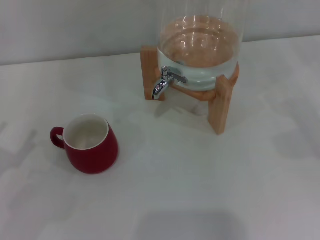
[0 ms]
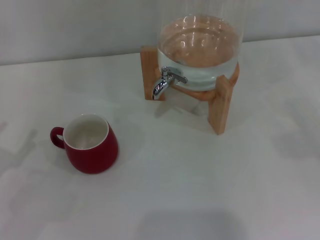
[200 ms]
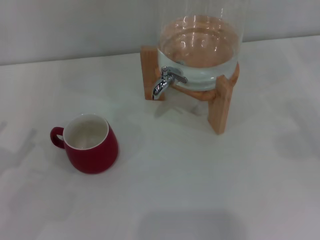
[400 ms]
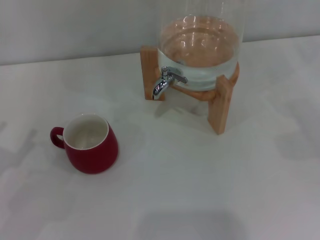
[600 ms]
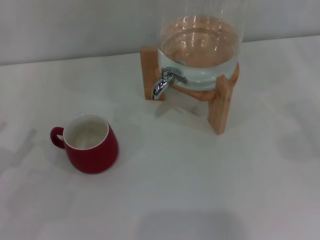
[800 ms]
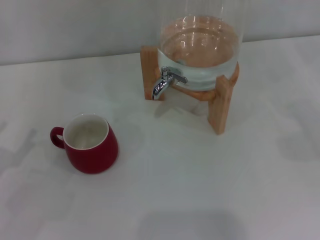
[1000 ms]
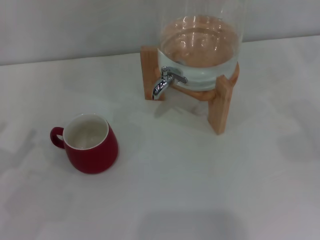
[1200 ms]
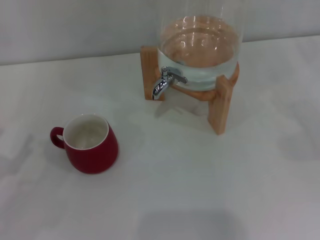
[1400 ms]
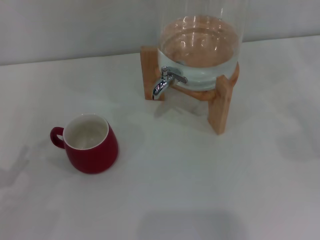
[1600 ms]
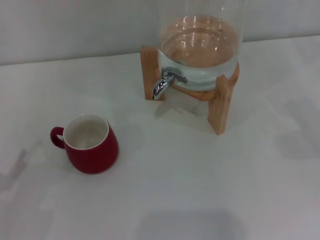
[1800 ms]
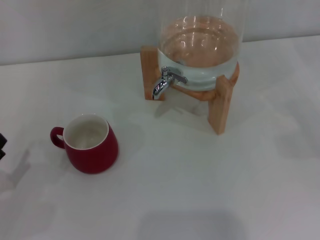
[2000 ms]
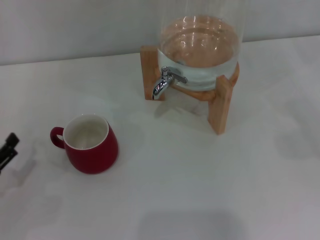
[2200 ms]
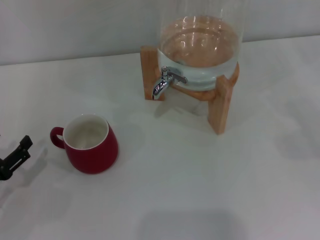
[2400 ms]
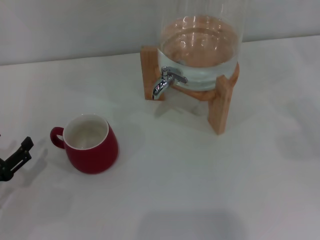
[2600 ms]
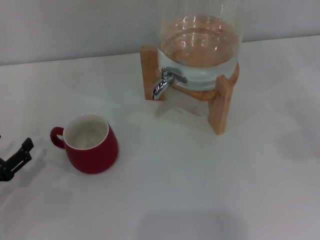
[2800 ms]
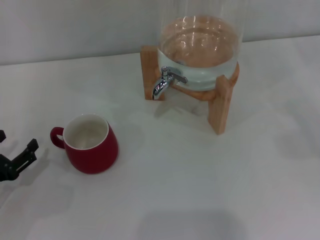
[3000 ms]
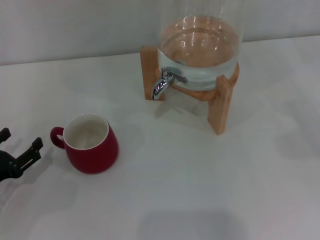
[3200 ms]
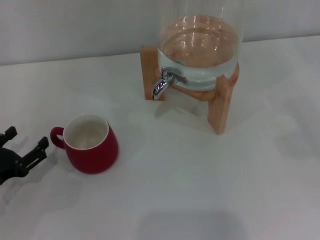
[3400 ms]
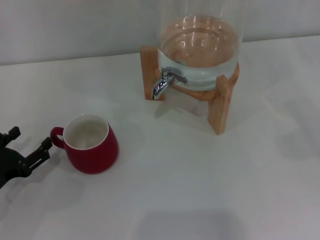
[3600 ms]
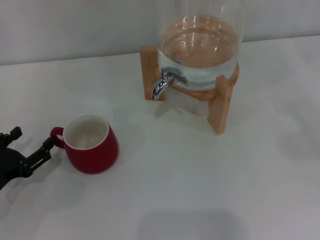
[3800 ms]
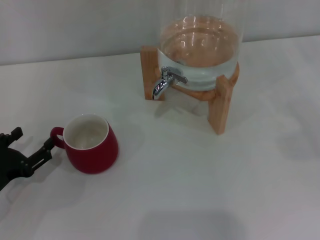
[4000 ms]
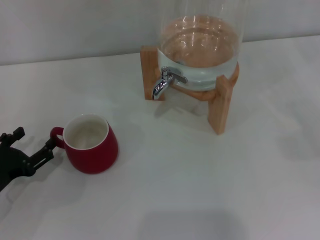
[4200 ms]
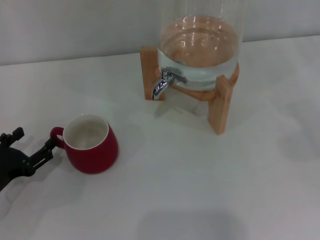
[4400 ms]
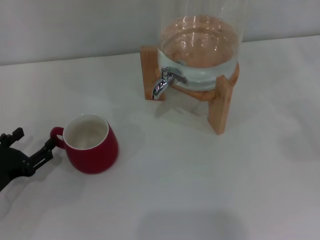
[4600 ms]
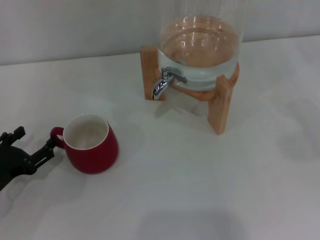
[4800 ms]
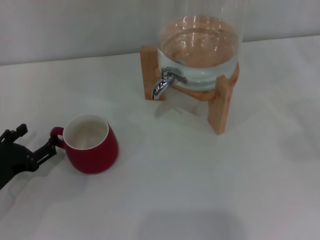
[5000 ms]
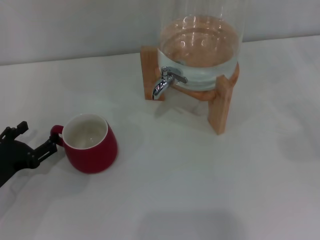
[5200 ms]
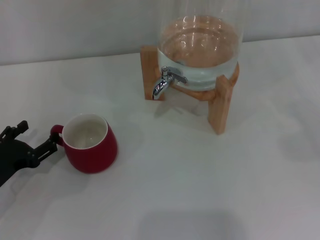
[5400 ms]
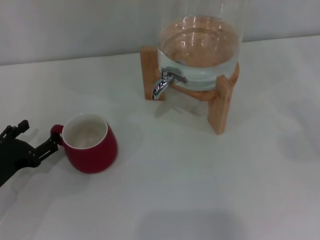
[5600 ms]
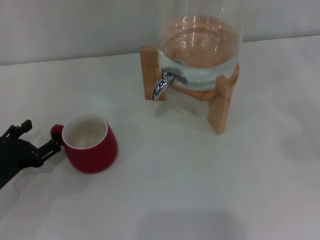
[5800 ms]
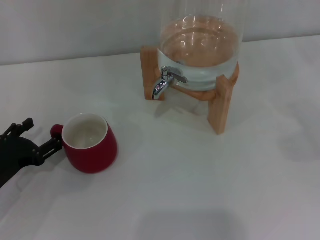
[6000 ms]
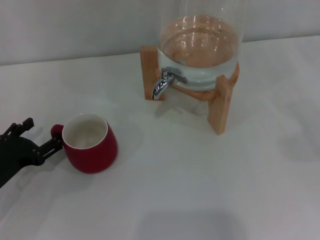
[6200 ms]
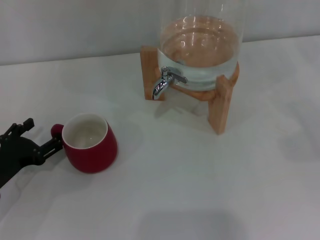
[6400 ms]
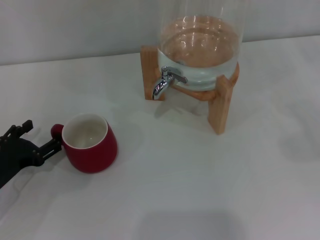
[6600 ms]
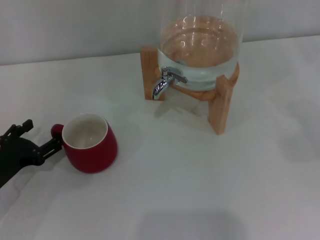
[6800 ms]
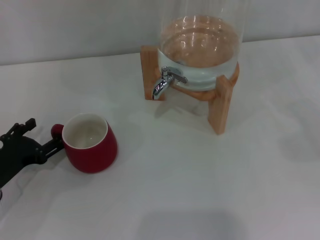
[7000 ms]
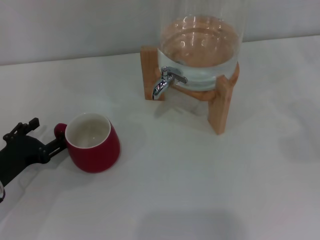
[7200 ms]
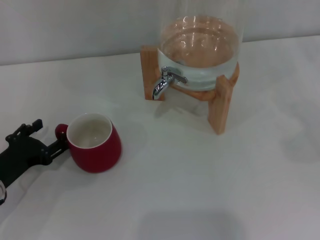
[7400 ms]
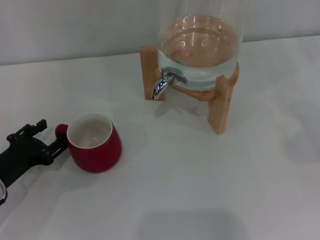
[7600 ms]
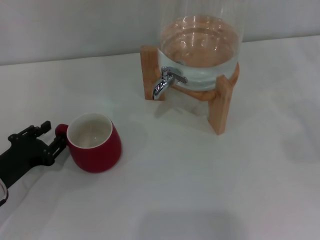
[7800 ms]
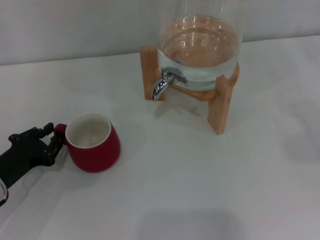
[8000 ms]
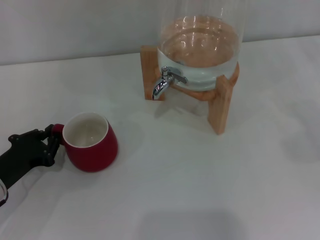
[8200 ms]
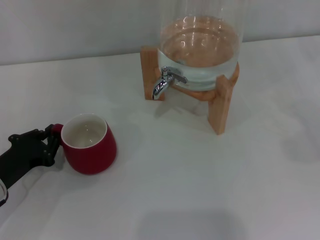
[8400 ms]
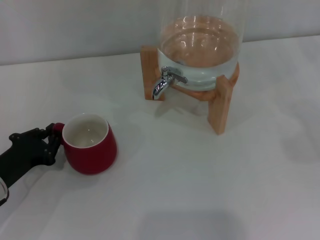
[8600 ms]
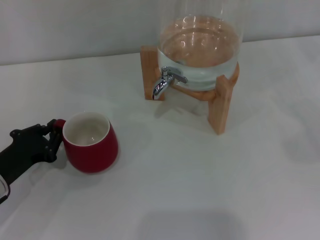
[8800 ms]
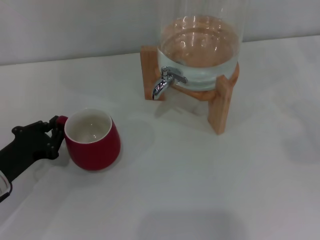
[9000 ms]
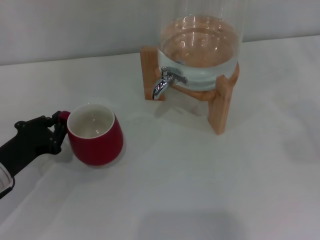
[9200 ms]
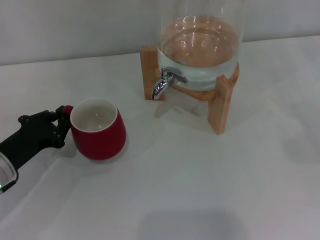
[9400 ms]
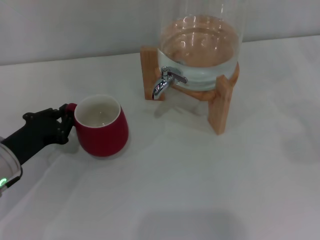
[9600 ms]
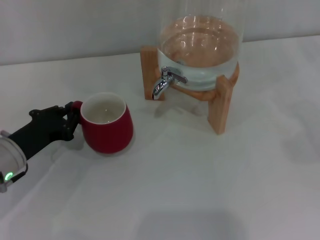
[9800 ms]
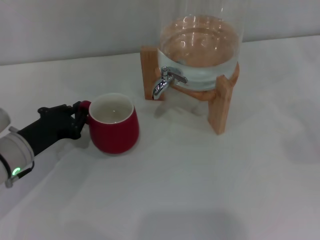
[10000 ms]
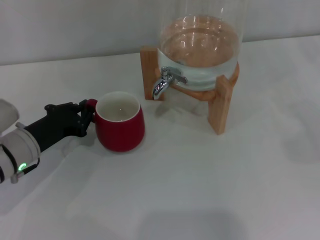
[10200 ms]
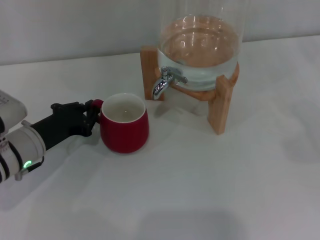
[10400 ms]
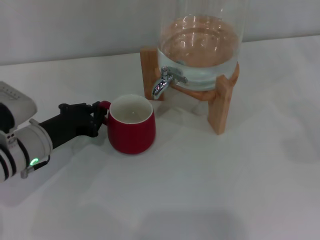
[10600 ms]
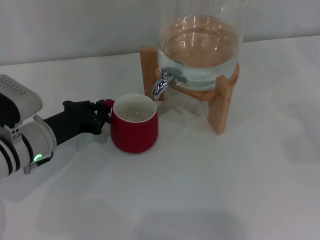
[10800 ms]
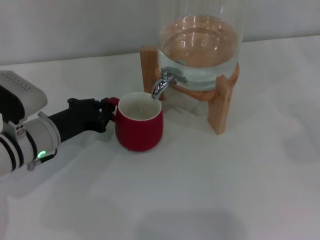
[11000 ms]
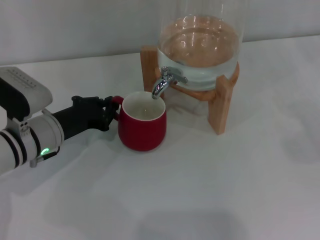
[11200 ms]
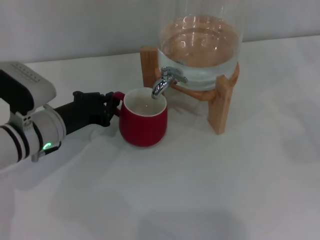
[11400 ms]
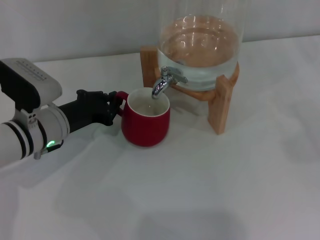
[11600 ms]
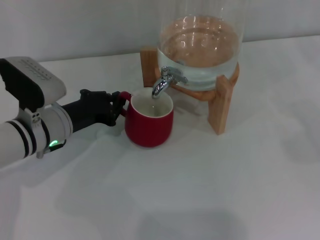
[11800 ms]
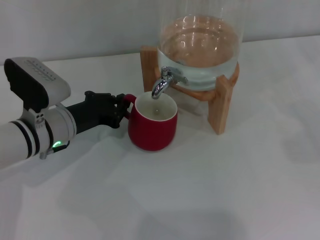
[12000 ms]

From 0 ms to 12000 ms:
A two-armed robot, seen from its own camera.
Task of the whole recording: the left gripper pick up the red cup and place it horizontally under the faucet, the right gripper turn on the faucet to fill the cup, and then turn off the faucet.
From 1600 ms to 3000 ms: The left gripper shifts by roughly 5 cm.
From 3000 ms to 6000 ms: The grippers stay close to where they were, moving slightly.
From 6000 ms to 7600 ms: Neither gripper changes place.
From 7600 ms to 9000 ms: The left gripper closes up.
From 9000 ms to 10400 ms: The left gripper heads to the right and forward, covering about 5 cm.
From 10400 ms to 12000 ms: The left gripper changes place by about 5 cm.

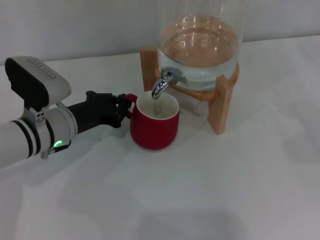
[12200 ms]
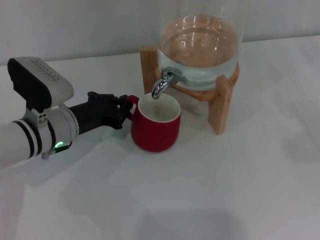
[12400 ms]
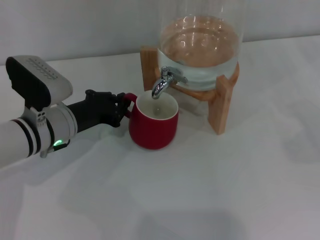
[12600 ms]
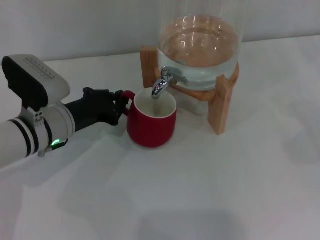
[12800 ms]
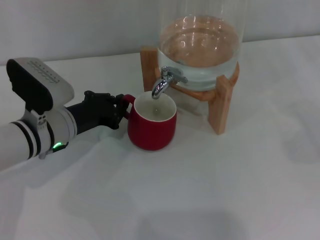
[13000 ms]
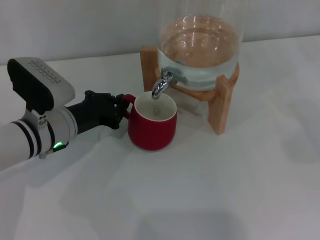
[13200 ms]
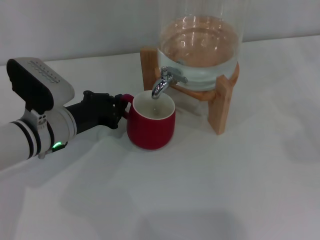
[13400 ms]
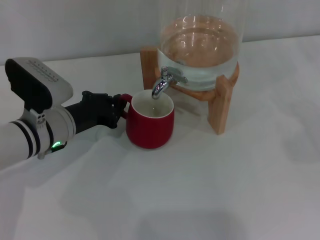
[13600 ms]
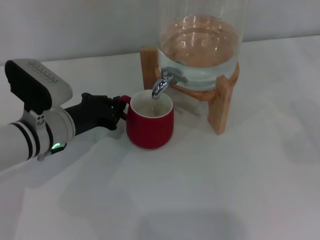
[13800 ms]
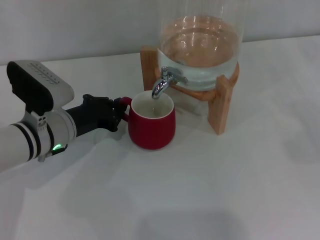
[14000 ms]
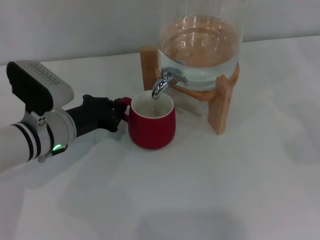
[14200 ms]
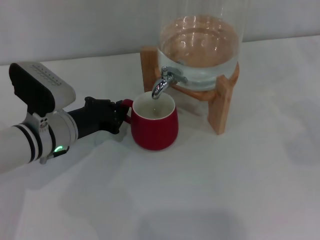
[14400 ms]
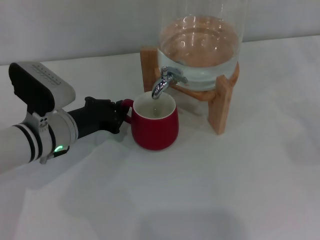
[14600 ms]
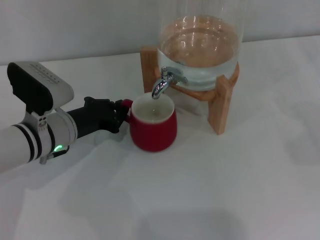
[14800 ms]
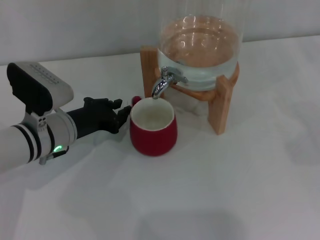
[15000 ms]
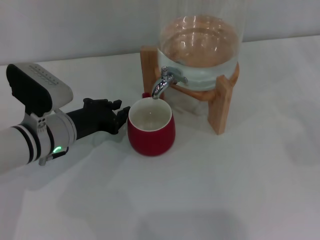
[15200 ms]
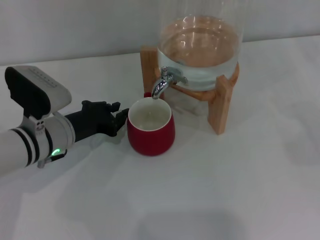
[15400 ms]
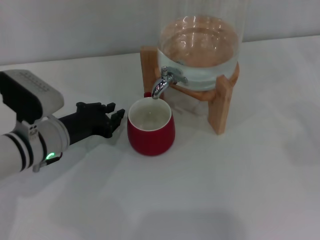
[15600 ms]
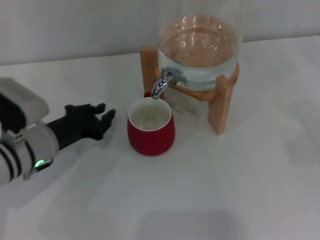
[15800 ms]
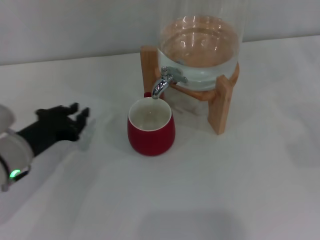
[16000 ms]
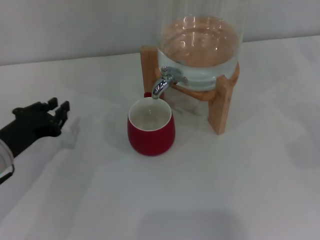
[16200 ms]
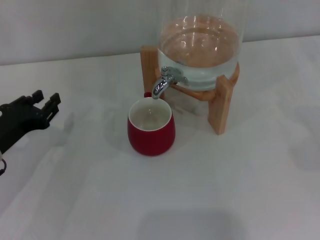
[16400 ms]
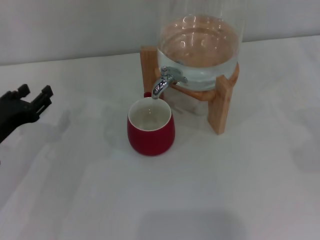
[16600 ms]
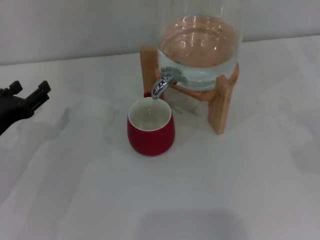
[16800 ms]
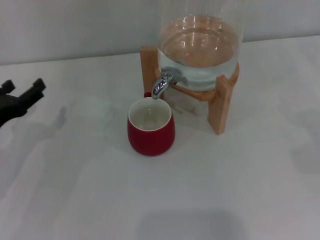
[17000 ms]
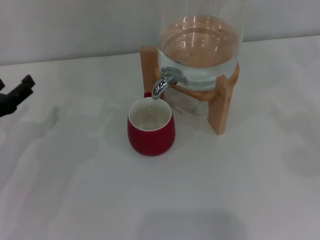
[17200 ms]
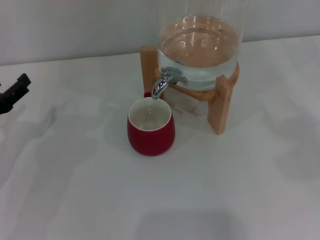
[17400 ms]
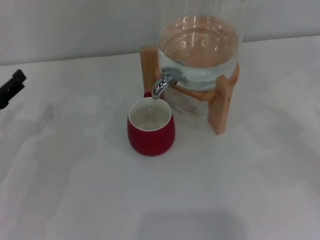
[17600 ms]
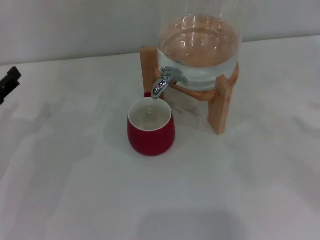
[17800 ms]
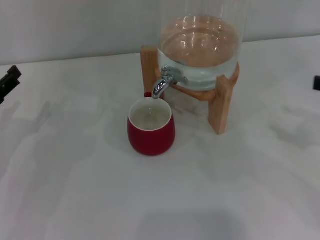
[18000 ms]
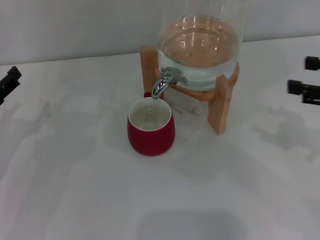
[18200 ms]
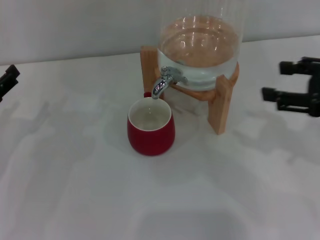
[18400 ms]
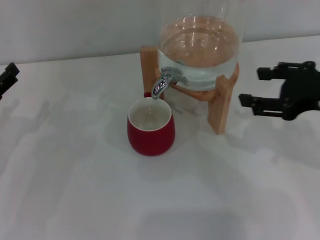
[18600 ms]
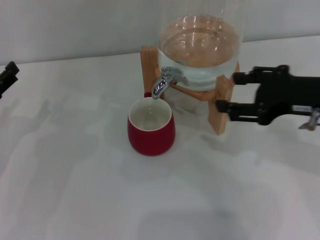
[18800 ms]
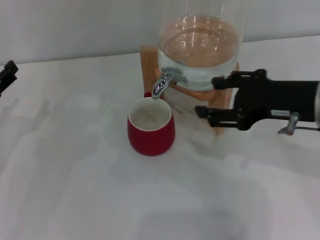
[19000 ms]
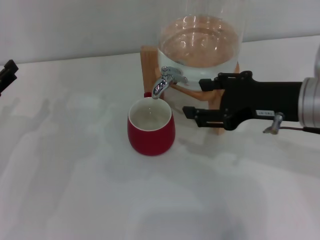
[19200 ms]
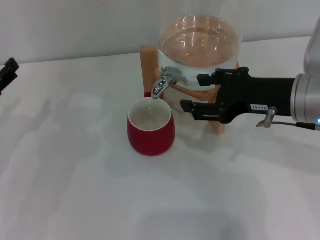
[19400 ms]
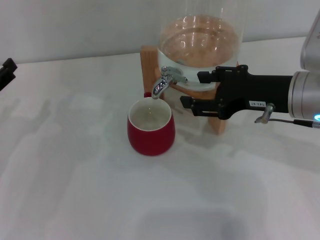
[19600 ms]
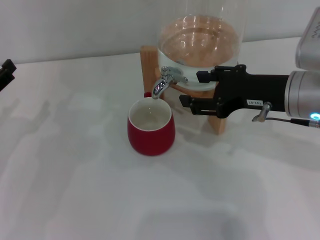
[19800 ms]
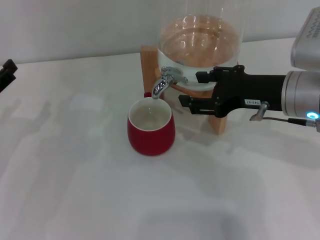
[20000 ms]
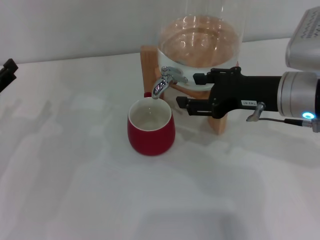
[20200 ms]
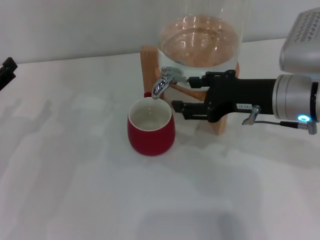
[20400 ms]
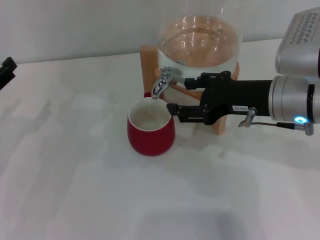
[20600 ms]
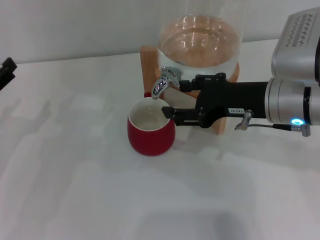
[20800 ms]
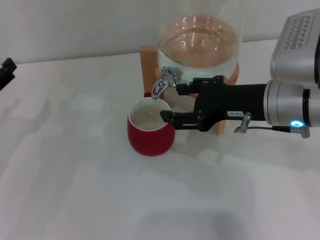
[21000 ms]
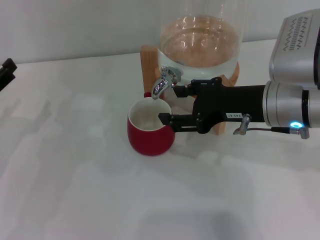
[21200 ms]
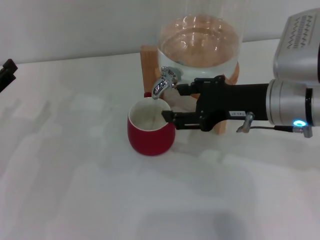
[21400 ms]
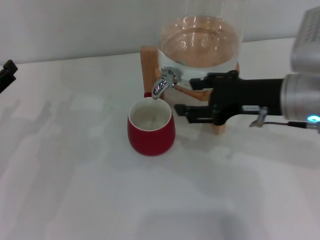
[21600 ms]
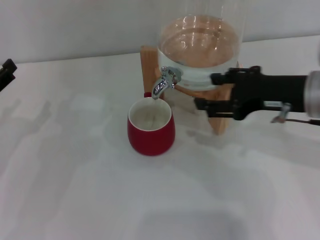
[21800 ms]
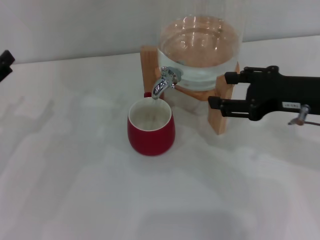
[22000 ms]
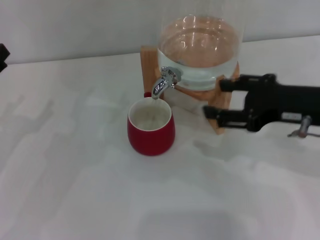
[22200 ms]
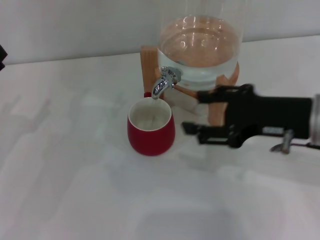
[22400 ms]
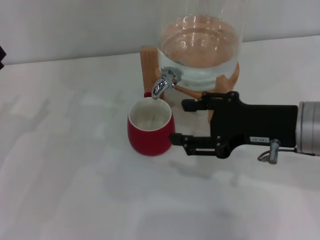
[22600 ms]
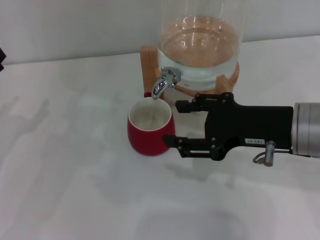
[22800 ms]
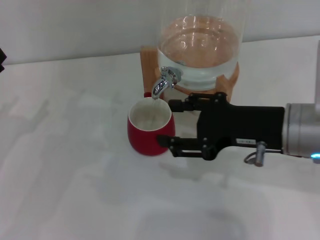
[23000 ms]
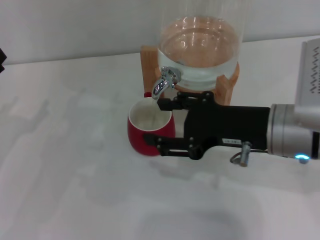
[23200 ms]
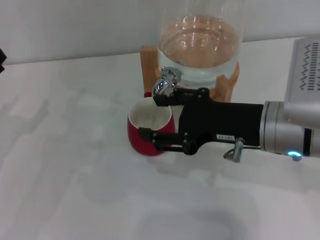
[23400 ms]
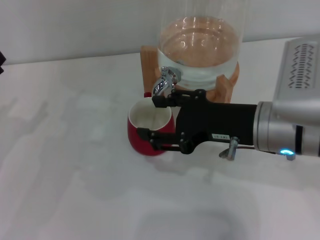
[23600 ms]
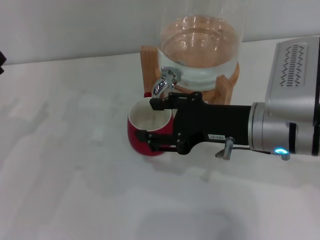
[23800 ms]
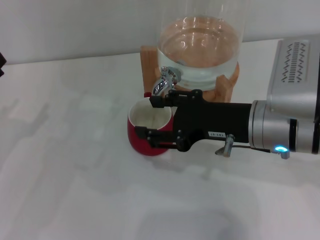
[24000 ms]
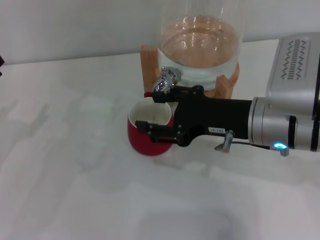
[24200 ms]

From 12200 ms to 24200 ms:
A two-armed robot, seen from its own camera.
Task of the whole recording: the left gripper pick up the red cup and place it horizontally under the faucet, the right gripper turn on the faucet to fill the cup, and then turn off the faucet.
Step, from 12200 ms to 15600 ms: Move the cup beneath the water dispenser nozzle with the left gripper.
Step, from 15800 ms to 21200 ms: Open the dispenser valve and fill the cup with water with the right gripper.
From 12200 ms to 15200 ms: The two grippers keep their place.
From 15200 ms to 16600 ms: The left gripper is displaced to the left and backward by approximately 10 cm.
From 16600 ms to 18200 ms: The right gripper shifts approximately 15 cm to the left and upward. The left gripper opens.
From 18200 ms to 19800 ms: The right gripper shifts about 15 cm to the left and forward.
From 19800 ms to 21200 ms: There are only small adjustments of the grippers.
From 22600 ms to 24200 ms: The right gripper shifts by some 5 cm.
